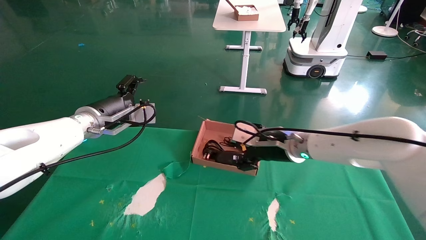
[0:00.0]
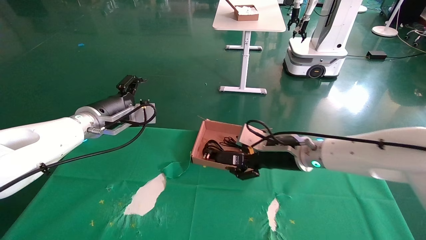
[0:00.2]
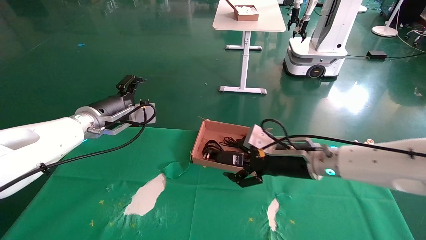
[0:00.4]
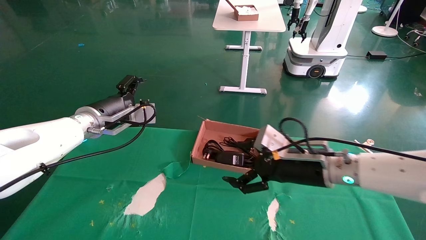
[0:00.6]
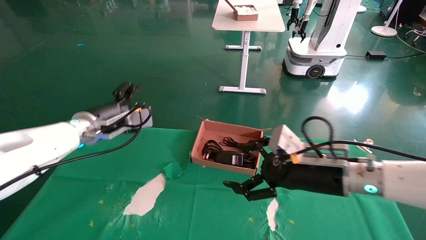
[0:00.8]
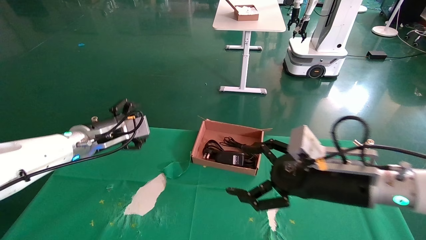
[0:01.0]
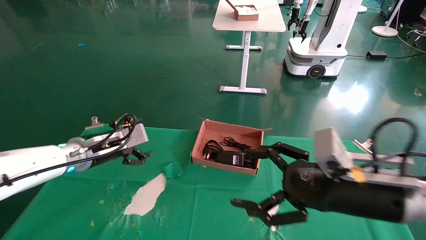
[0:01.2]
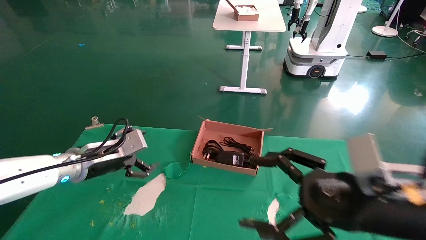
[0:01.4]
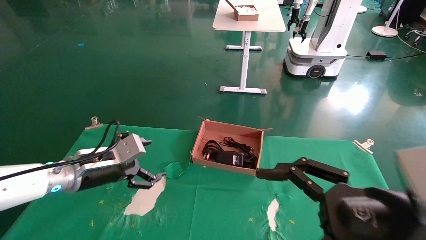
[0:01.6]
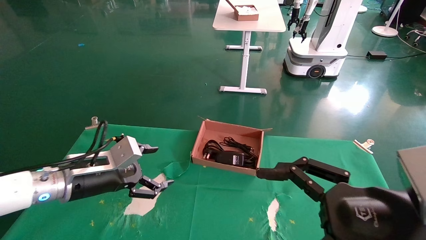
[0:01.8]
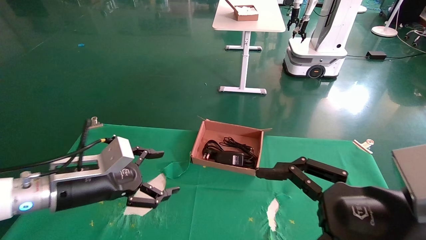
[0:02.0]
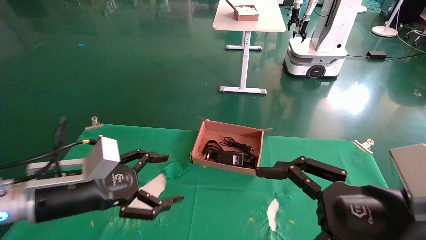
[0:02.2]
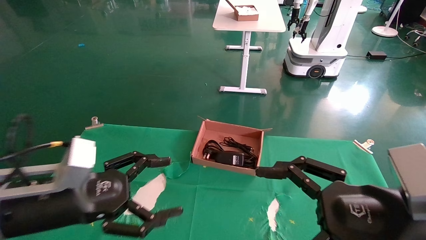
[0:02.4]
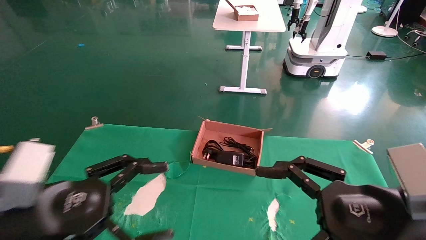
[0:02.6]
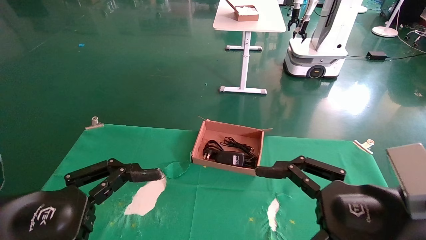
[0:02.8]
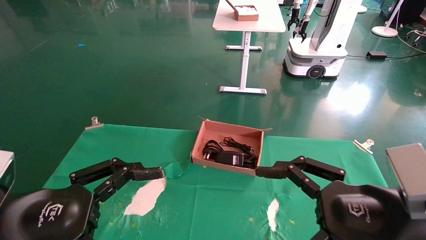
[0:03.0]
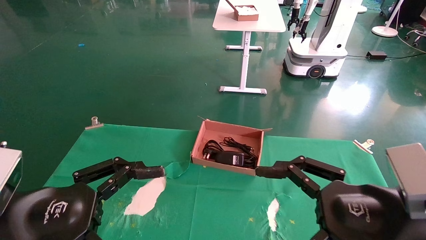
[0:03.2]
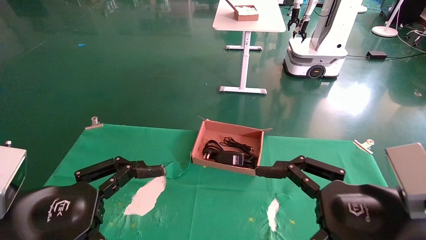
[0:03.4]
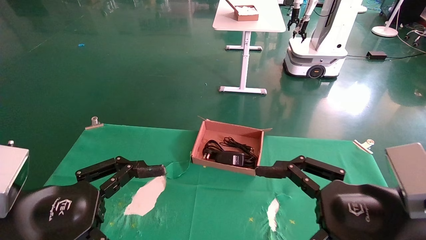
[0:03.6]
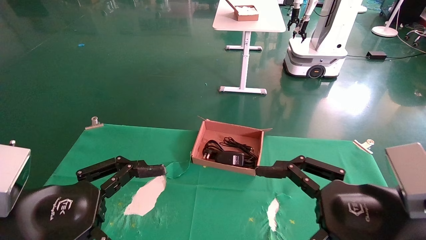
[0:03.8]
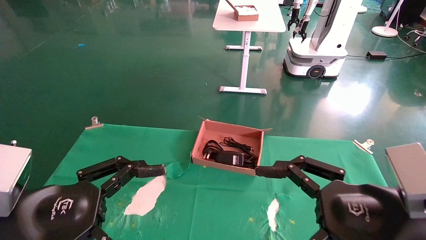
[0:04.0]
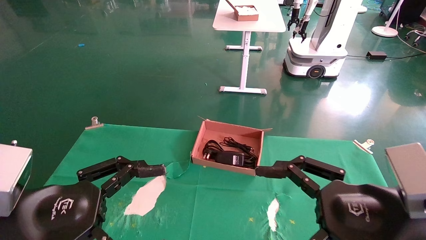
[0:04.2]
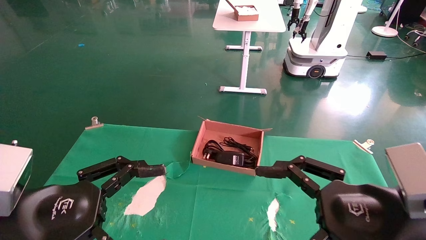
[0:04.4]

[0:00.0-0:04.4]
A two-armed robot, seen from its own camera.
0:00.0 to 0:01.4: The left gripper heads downward, covering roughly 10 cm. The right gripper moves backward and to the right, about 25 cm.
0:01.4 to 0:03.0: The left gripper heads backward, covering about 20 cm.
0:03.0 to 0:04.4: The two grippers keep their place.

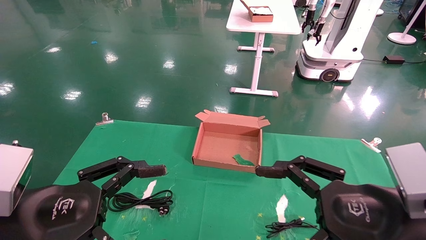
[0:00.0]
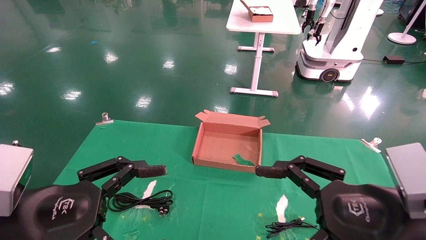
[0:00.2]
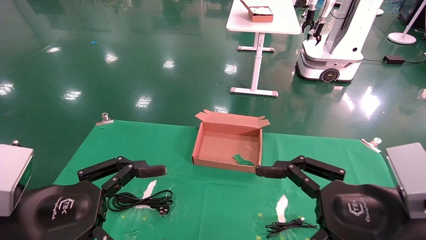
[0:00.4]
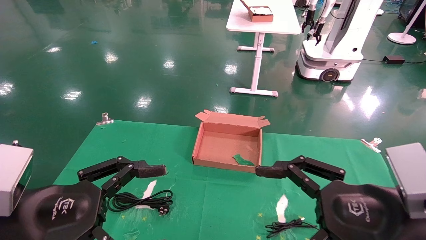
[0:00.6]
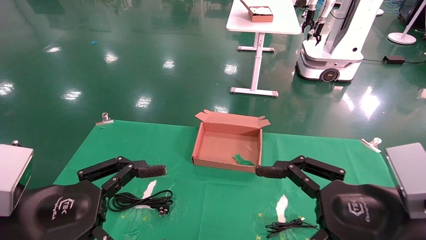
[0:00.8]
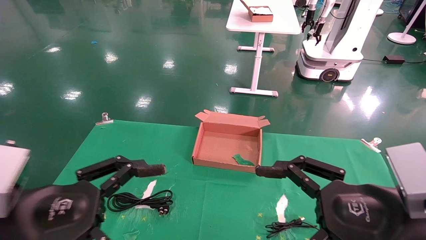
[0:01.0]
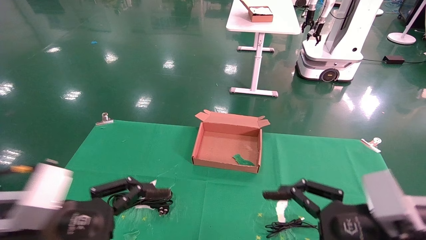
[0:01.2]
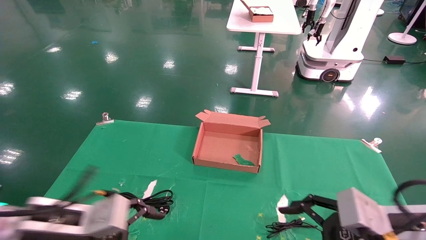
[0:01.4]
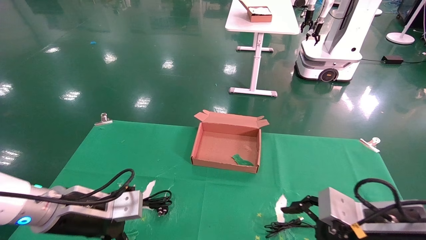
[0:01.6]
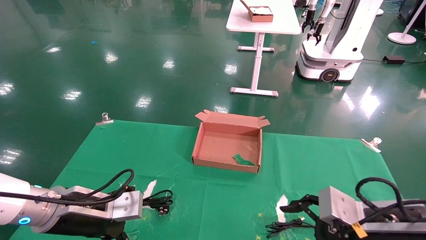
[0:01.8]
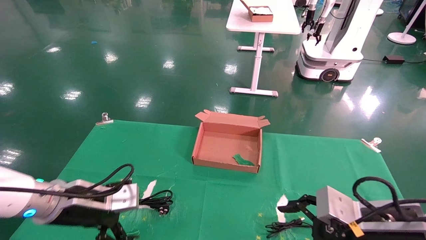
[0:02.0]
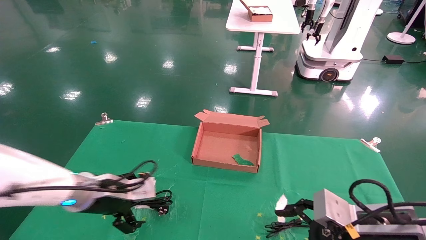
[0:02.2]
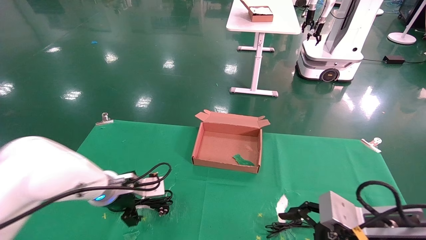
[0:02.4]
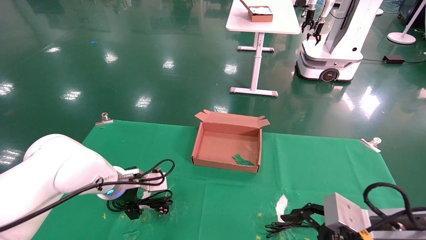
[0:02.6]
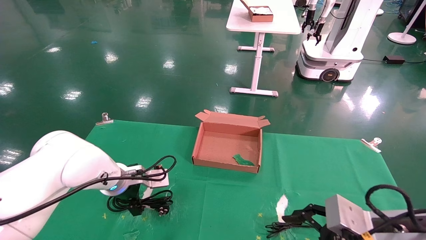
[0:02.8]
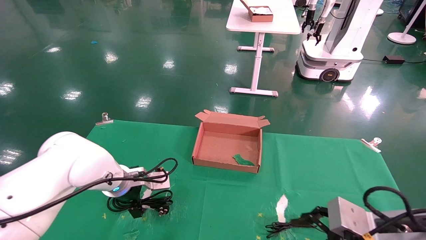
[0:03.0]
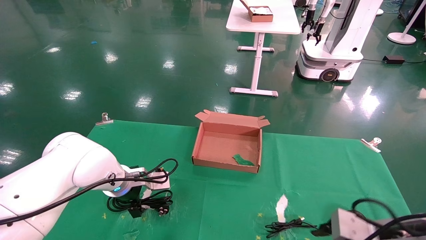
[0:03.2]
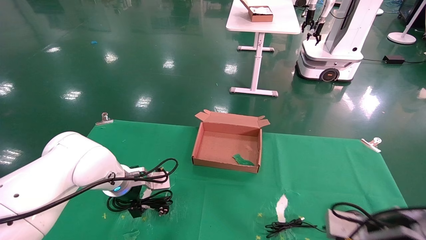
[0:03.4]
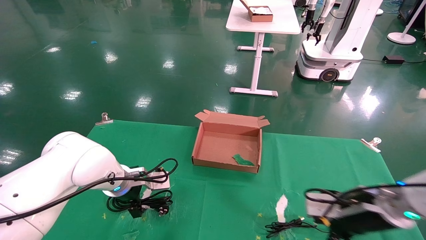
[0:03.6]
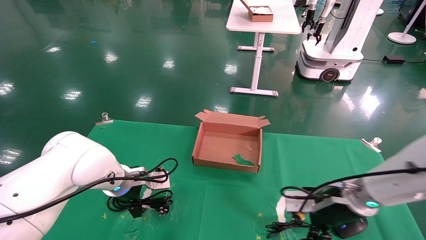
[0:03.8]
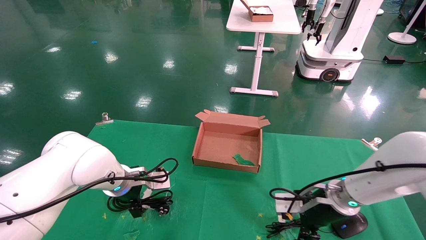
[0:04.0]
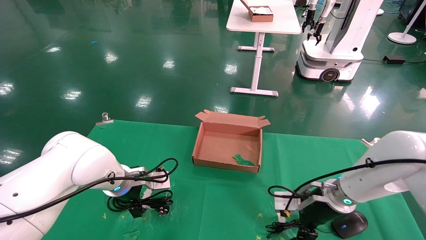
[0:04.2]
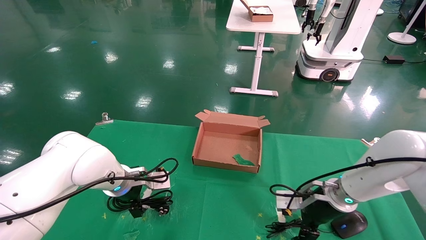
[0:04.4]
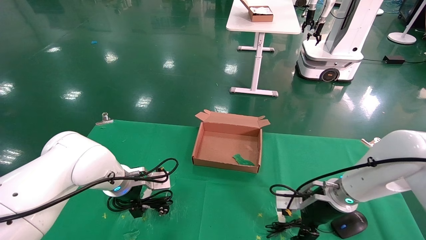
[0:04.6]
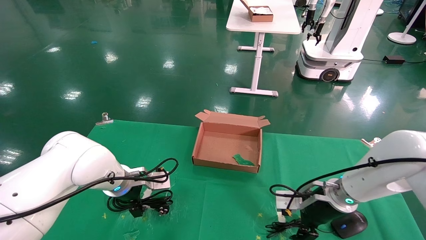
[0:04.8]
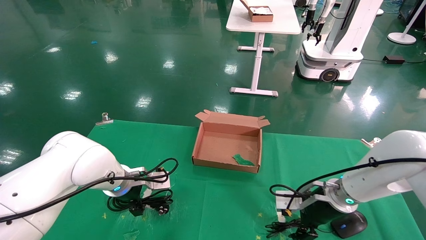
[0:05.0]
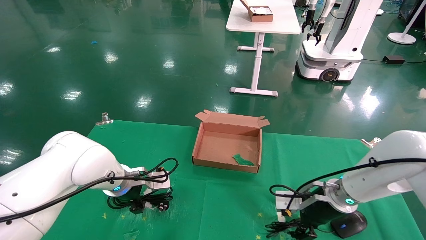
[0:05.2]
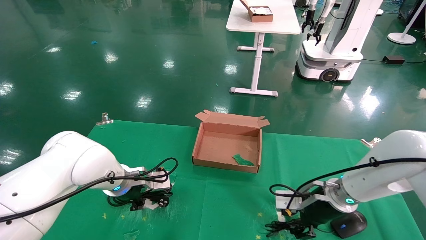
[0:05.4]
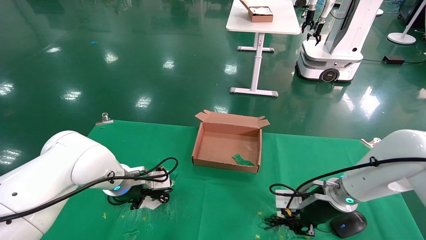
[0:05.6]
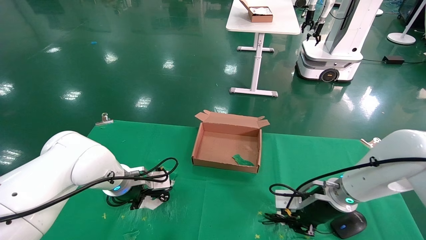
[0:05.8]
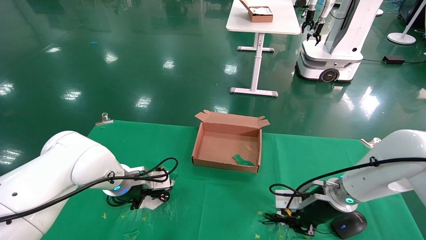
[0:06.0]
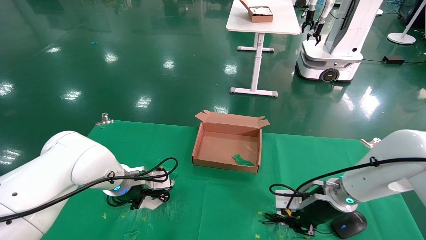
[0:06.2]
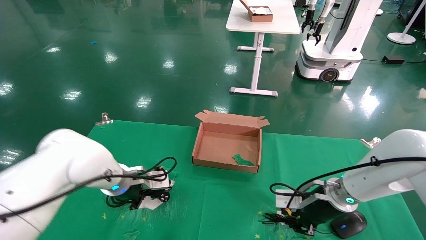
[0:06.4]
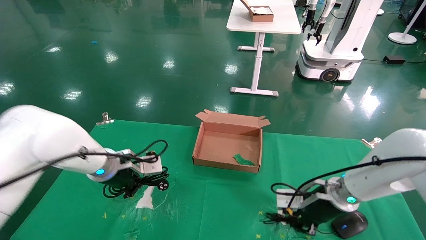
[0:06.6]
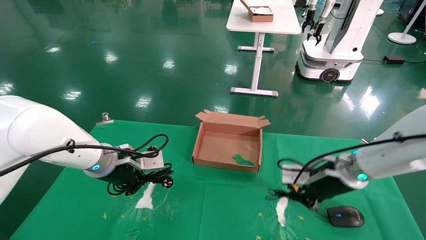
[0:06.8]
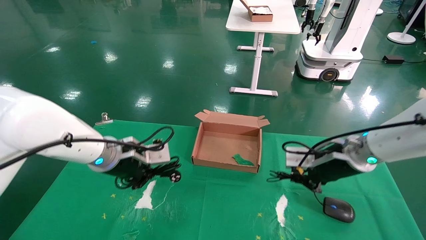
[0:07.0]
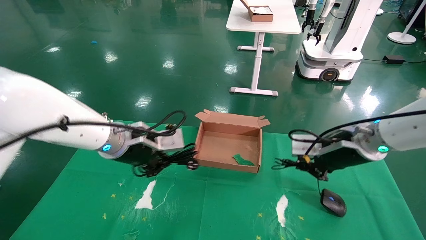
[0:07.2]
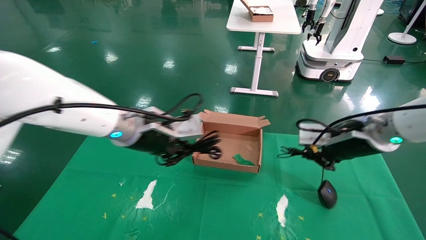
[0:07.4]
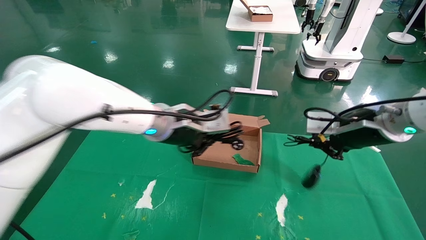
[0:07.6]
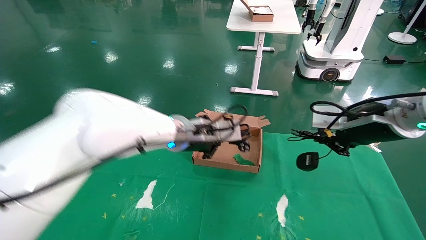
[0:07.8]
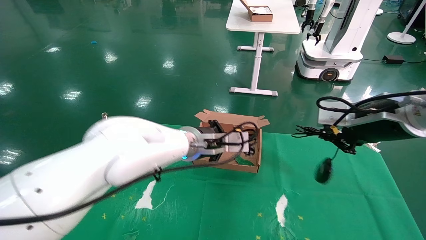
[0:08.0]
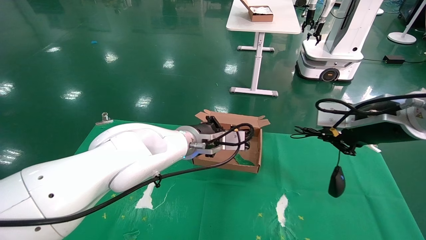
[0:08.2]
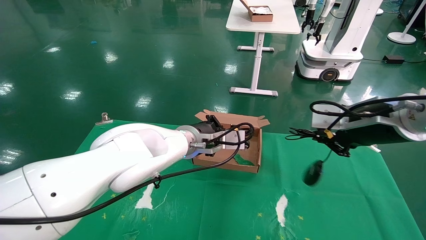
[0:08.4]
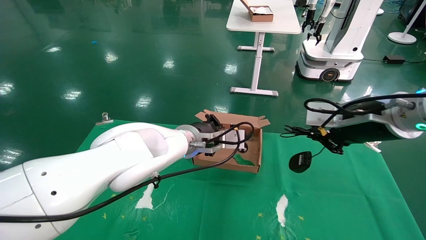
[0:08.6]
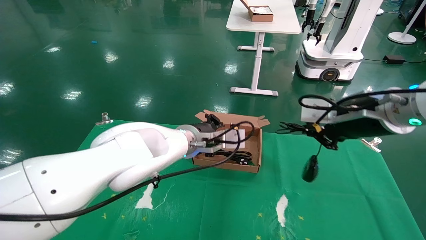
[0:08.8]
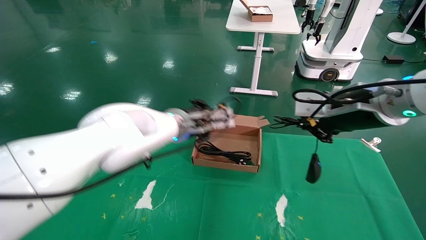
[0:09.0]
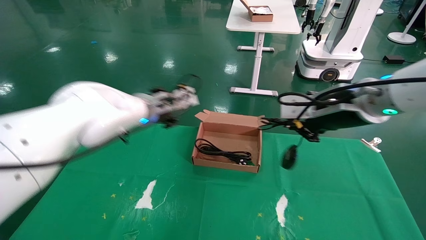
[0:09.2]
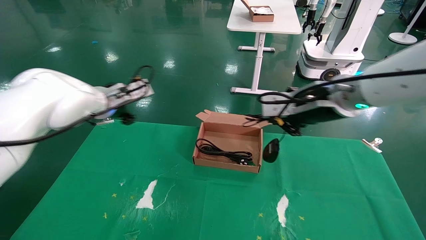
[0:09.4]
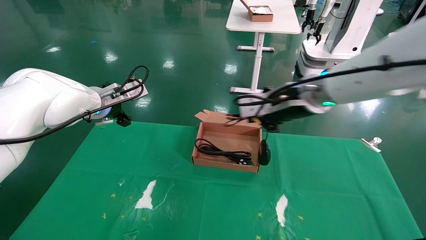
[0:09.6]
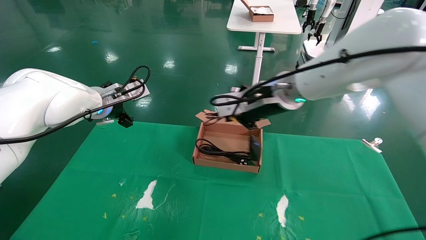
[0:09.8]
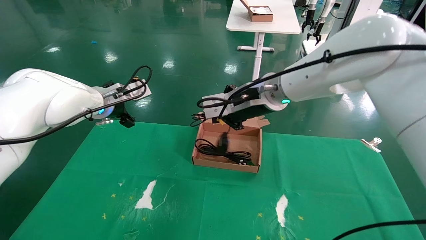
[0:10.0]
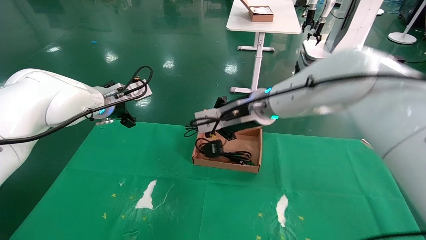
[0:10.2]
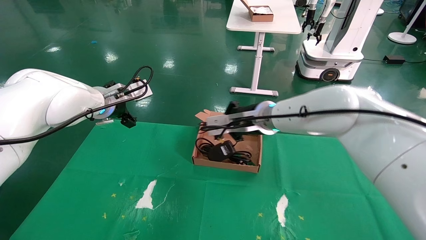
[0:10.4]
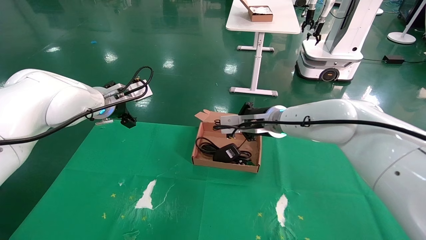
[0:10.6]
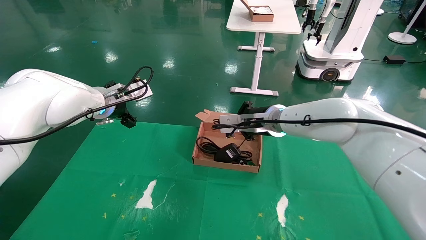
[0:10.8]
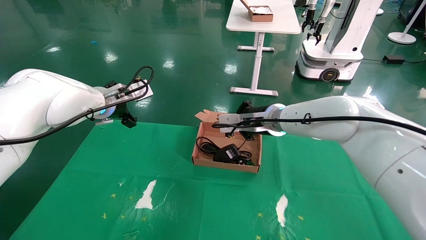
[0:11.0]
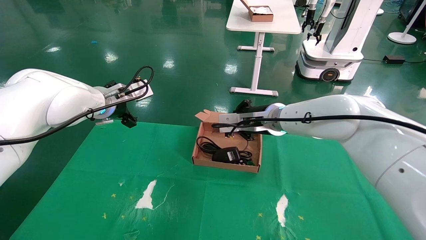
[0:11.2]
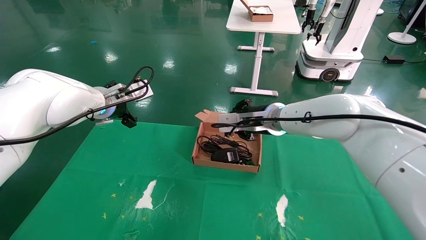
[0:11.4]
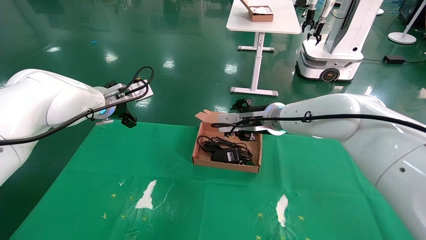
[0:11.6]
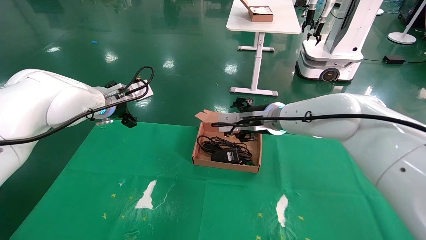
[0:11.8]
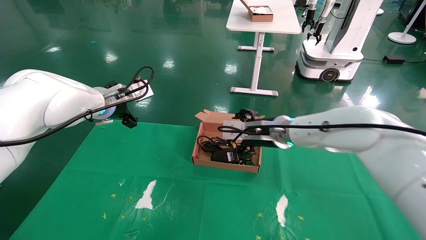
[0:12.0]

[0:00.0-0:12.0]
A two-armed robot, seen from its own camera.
Step, 0:01.4 to 0:06.0: Grab and lift both the mouse and power cord from the accessory packaging area at the same time.
Step, 0:06.2 to 0:10.6: Place the mouse and power cord into the box.
0:00.0 to 0:01.6: The right gripper moves downward, some 5 cm. Meanwhile the left gripper travels forward and downward by about 10 cm.
0:01.6 to 0:03.0: The left gripper moves forward, some 15 cm.
0:03.0 to 0:04.4: The right gripper goes some 15 cm forward.
0:04.4 to 0:06.0: The right gripper closes, while the left gripper closes up.
0:06.0 to 0:07.6: The right gripper travels upward by about 20 cm. Meanwhile the left gripper goes about 20 cm upward and to the right.
0:07.6 to 0:09.0: The left gripper shifts some 5 cm forward; the right gripper changes place by approximately 5 cm.
0:09.0 to 0:10.4: The right gripper shifts about 20 cm to the left and forward. The left gripper shifts approximately 15 cm to the left, and opens up.
0:10.4 to 0:12.0: The right gripper ends up roughly 5 cm from where it was, and opens.
